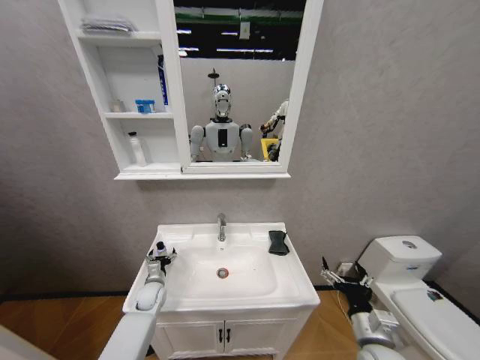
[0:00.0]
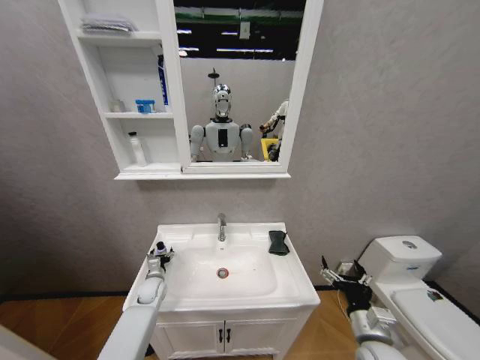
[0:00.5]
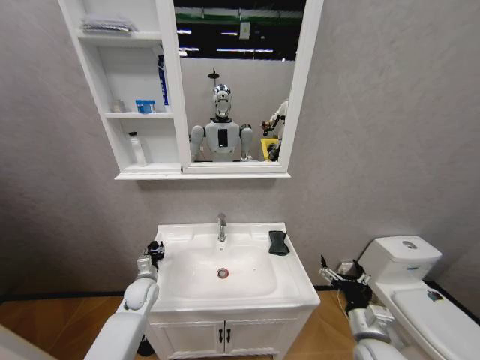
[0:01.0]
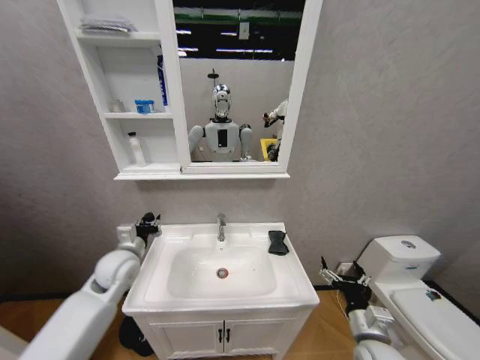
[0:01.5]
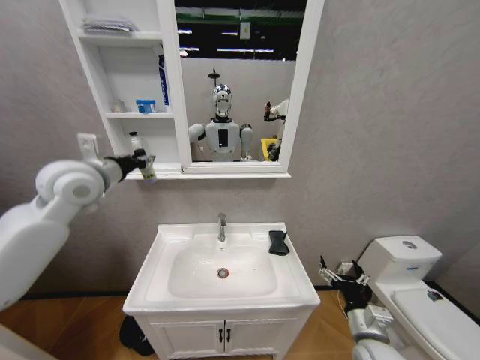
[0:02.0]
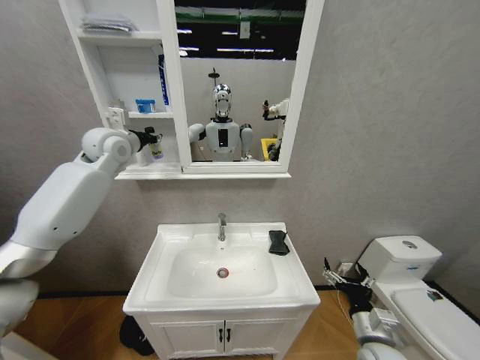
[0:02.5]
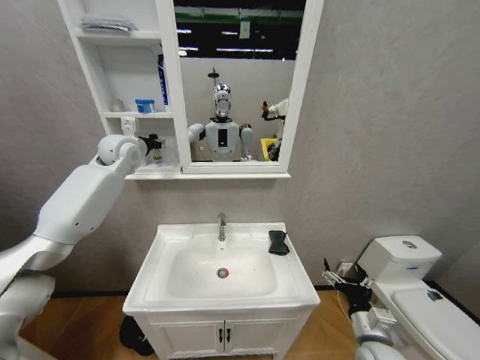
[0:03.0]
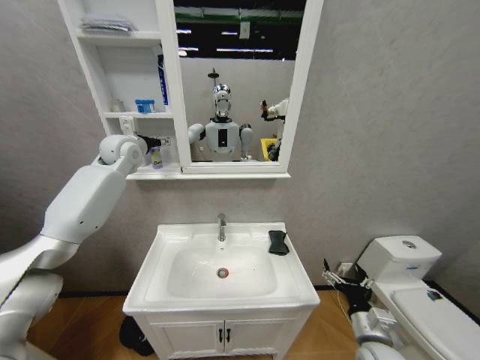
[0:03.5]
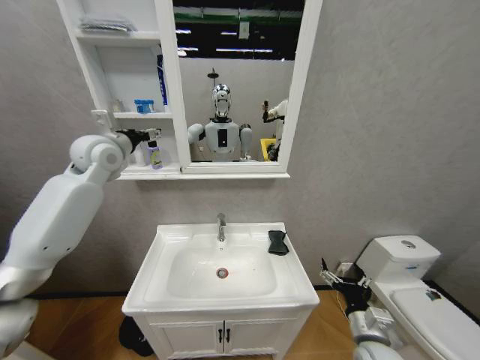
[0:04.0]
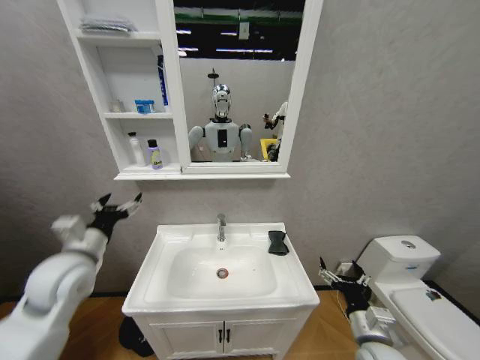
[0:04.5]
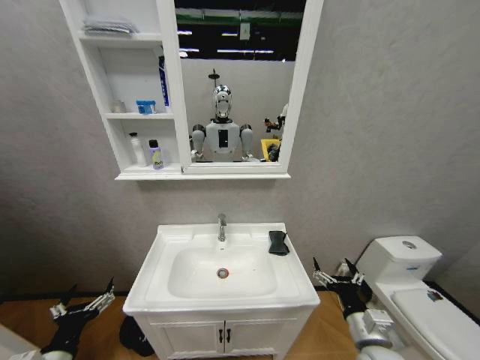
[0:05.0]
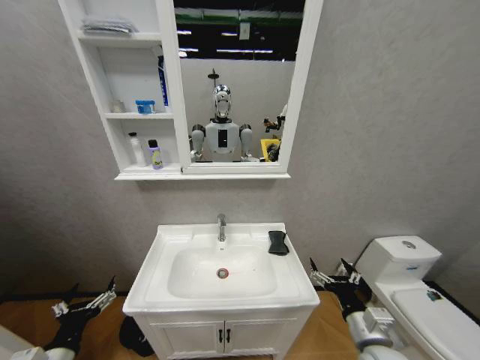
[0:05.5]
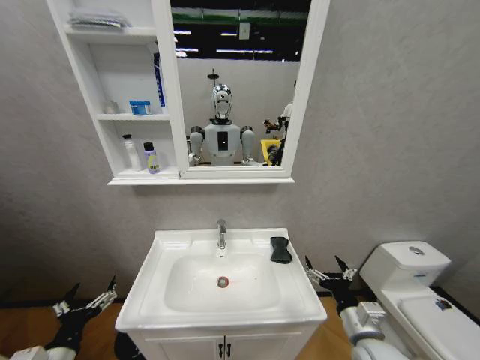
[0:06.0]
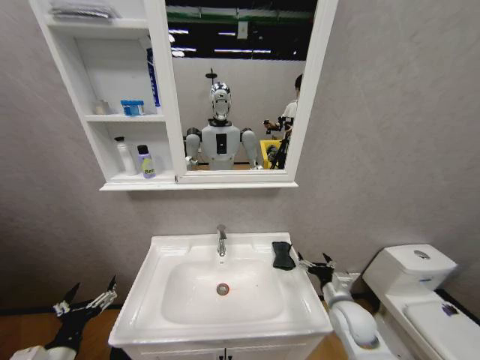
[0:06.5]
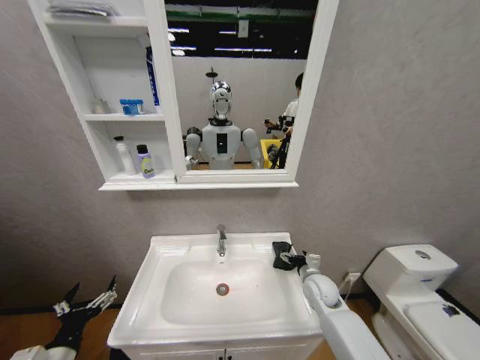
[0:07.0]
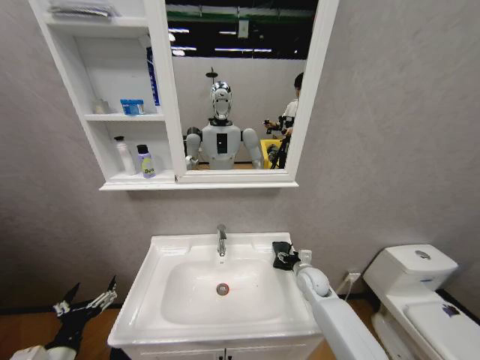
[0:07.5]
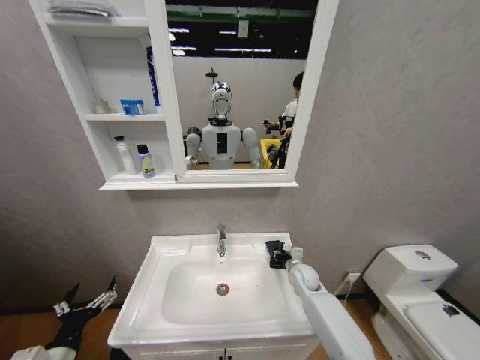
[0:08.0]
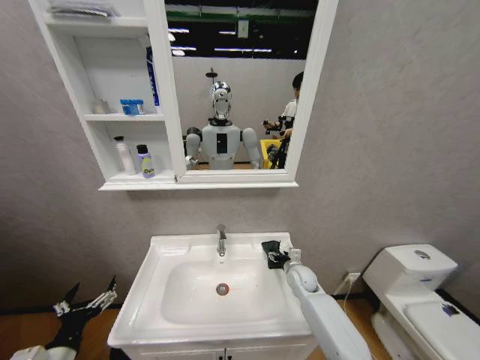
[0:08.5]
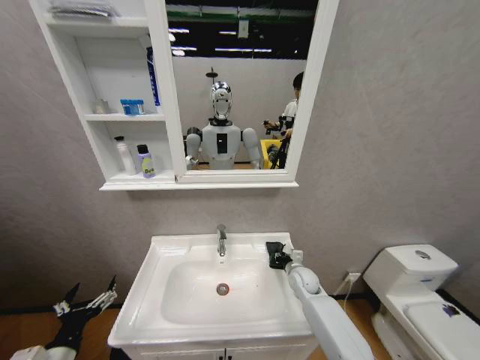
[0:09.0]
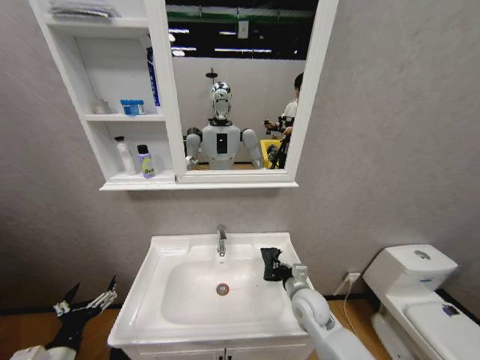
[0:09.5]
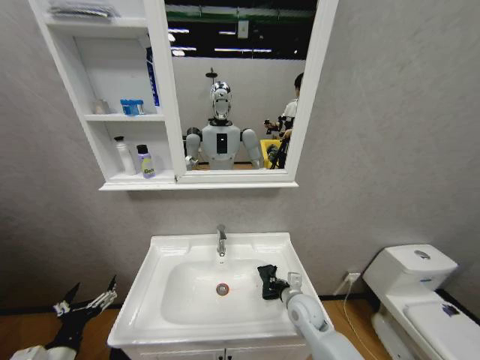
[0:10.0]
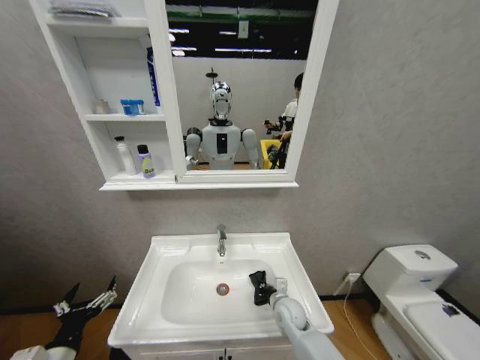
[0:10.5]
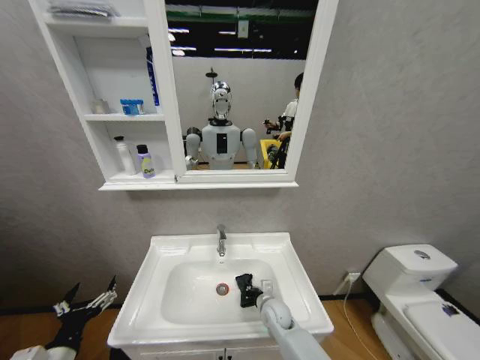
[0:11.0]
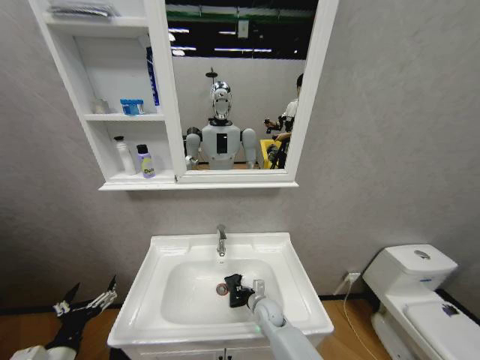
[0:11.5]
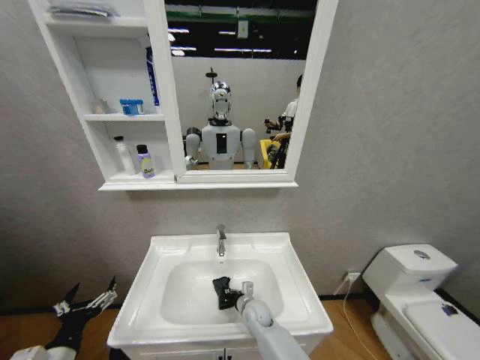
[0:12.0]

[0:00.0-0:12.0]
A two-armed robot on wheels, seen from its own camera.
Task of the whole recording: Move facial cleanser and shampoo from washbasin to cabinet, then wipe washbasin with towel.
0:00.0 to 0:02.0: The left gripper shifts approximately 50 cm upward, and closes up.
0:02.0 to 0:04.0: The left gripper travels forward by approximately 5 cm, and opens up.
0:04.0 to 0:06.0: The left gripper goes some 50 cm downward and backward.
0:06.0 to 0:08.0: The right gripper heads forward, covering some 25 cm, and closes up.
0:08.0 to 0:10.0: The right gripper travels backward by some 10 cm, and opens, then closes once more.
0:10.0 to 0:12.0: The right gripper heads to the left and downward, covering approximately 15 cm.

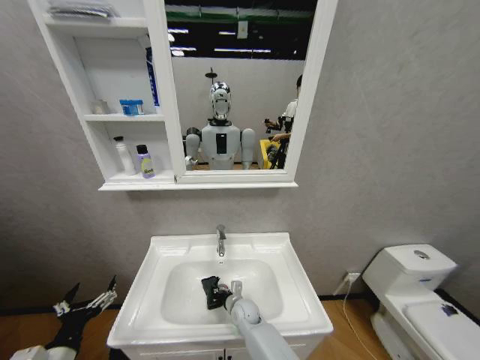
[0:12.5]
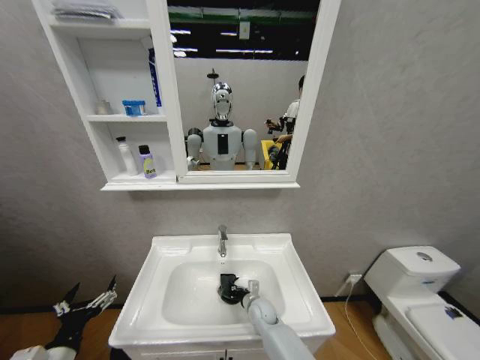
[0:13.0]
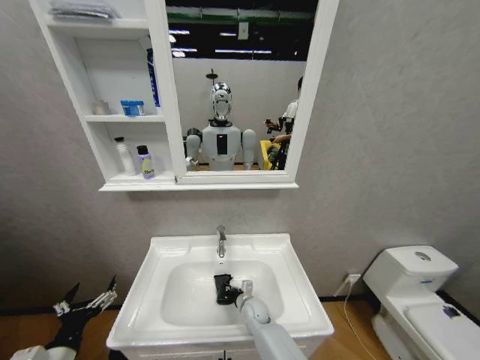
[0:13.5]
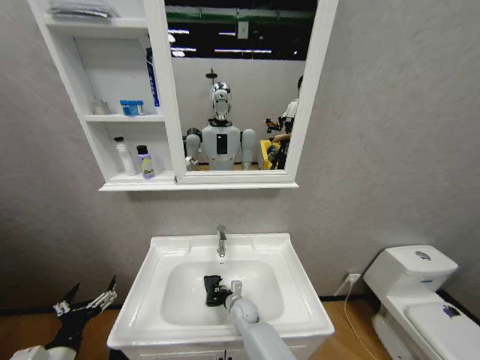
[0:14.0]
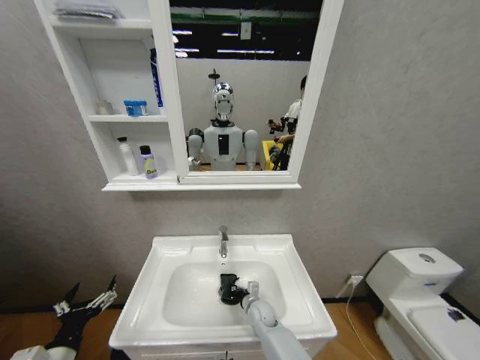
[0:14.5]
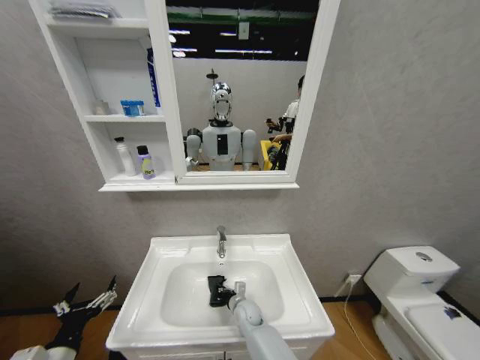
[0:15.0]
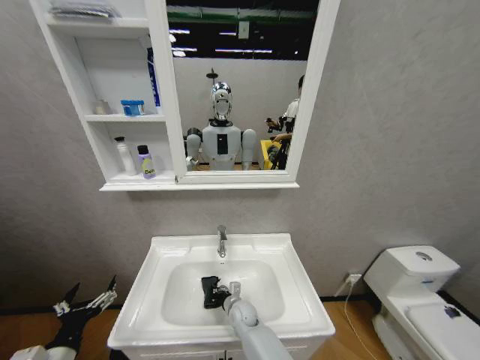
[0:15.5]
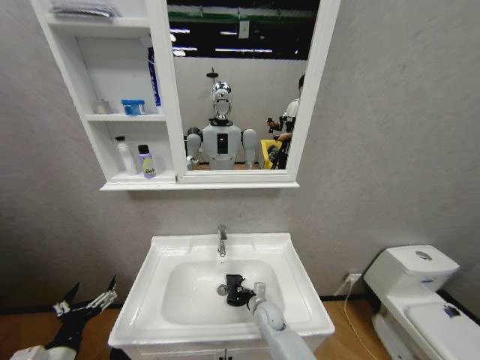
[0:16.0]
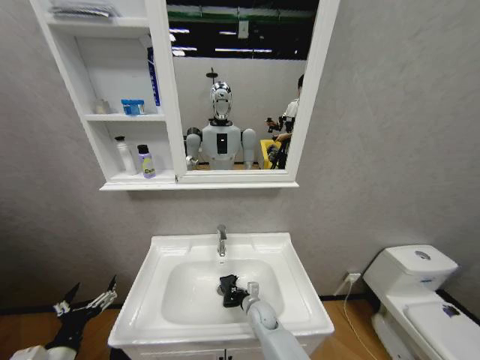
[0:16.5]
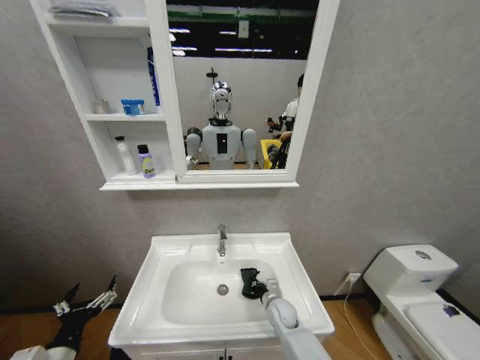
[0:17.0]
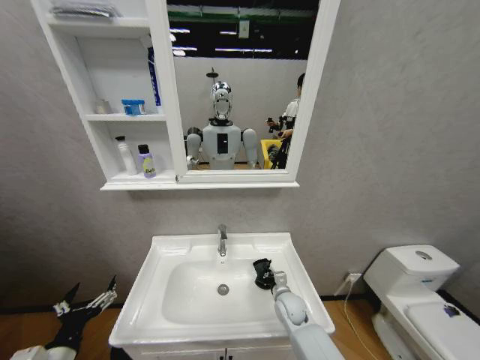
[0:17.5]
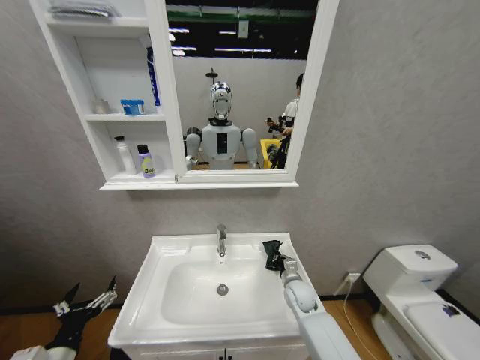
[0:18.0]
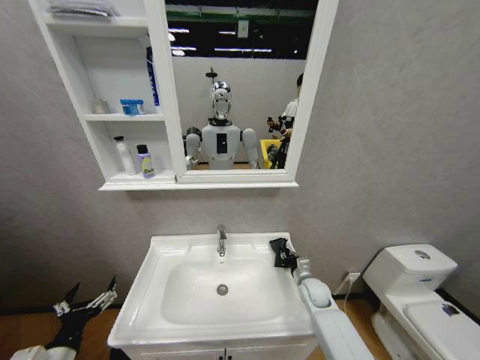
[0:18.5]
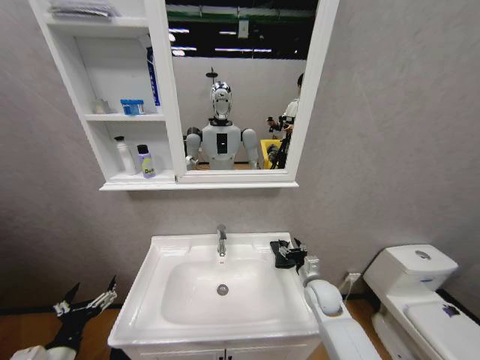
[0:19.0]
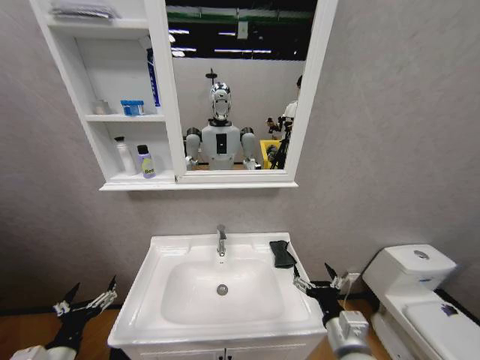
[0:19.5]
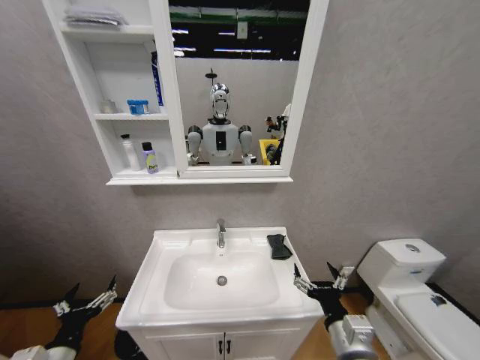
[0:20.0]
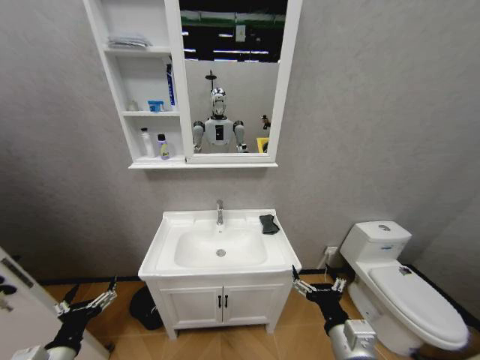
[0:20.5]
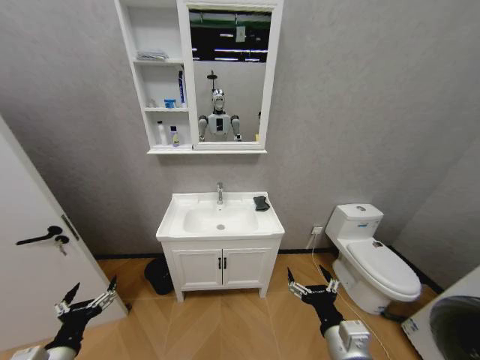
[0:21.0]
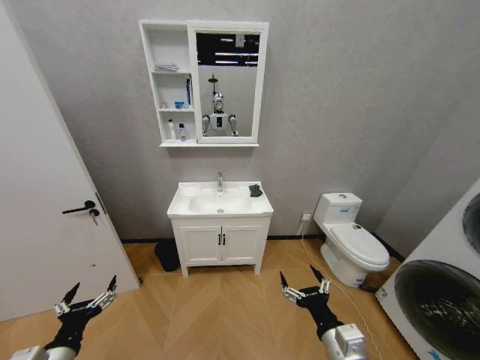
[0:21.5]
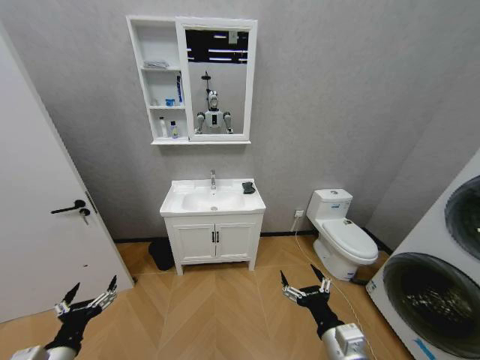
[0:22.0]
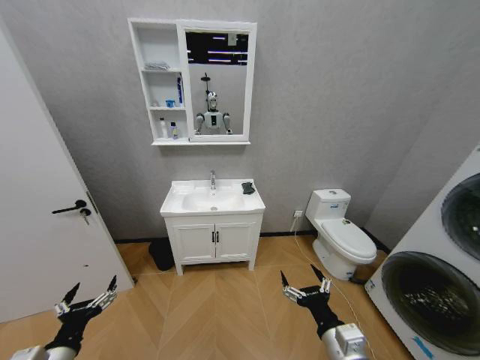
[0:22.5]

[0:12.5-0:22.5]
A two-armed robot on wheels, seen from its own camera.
Task of the whole recording: Move facial cleanser and shampoo from washbasin to cabinet, then wipe washbasin with towel.
0:12.5 to 0:14.5: The right gripper moves left and right over approximately 5 cm, changing direction 2 times.
0:14.5 to 0:16.5: The right gripper reaches approximately 5 cm to the left, then returns.
0:16.5 to 0:18.5: The right gripper is displaced to the right and upward by roughly 20 cm.
0:18.5 to 0:20.5: The right gripper is displaced backward and upward by approximately 30 cm, and opens.

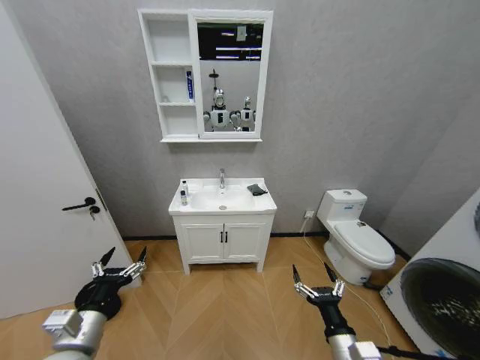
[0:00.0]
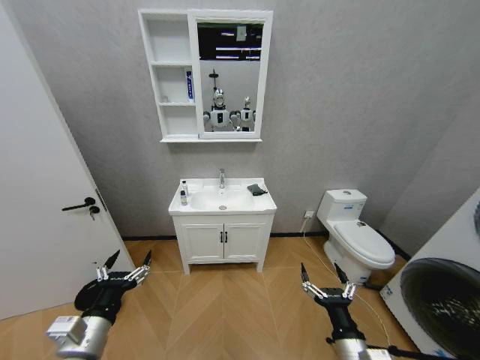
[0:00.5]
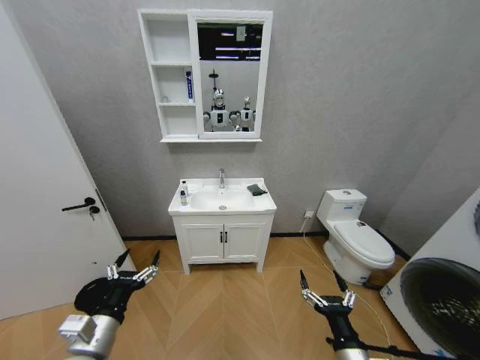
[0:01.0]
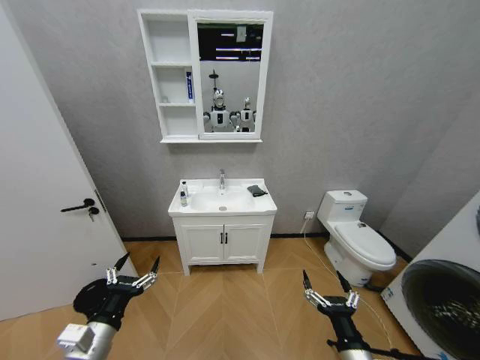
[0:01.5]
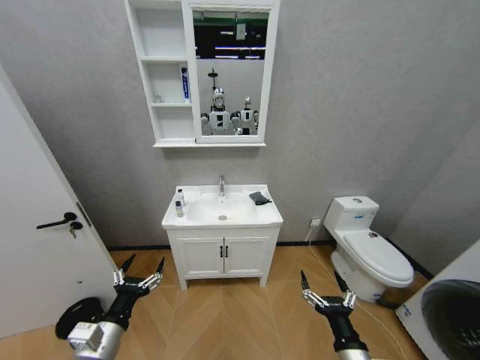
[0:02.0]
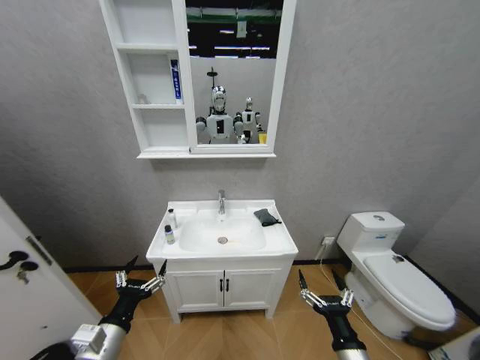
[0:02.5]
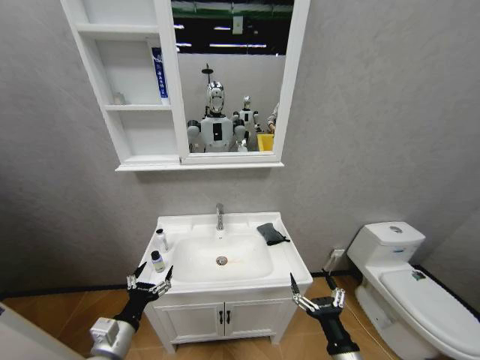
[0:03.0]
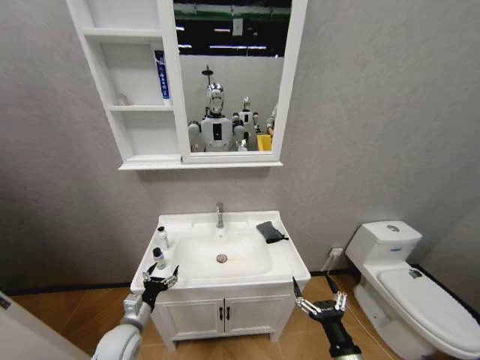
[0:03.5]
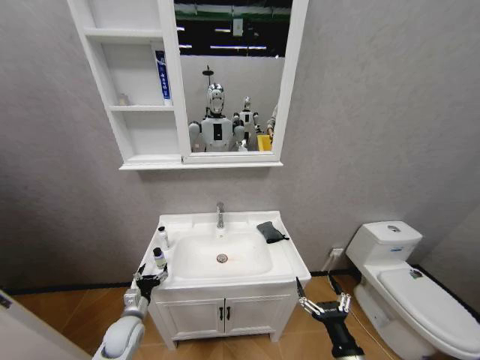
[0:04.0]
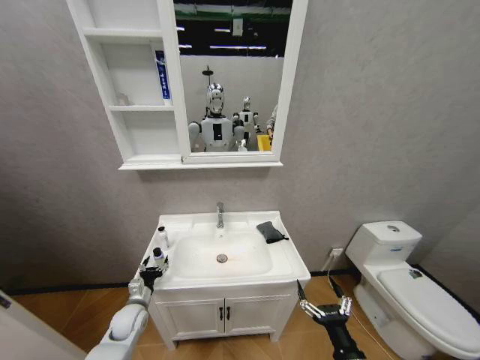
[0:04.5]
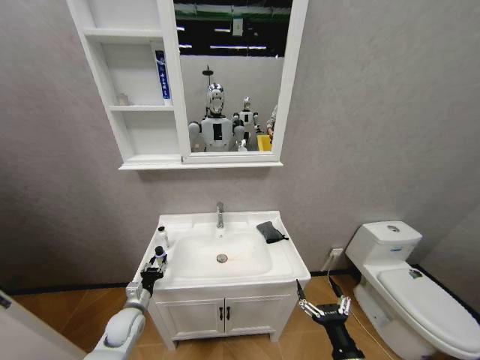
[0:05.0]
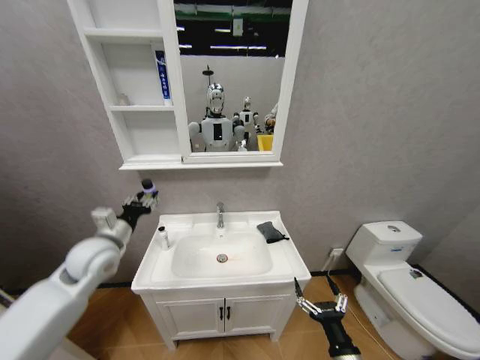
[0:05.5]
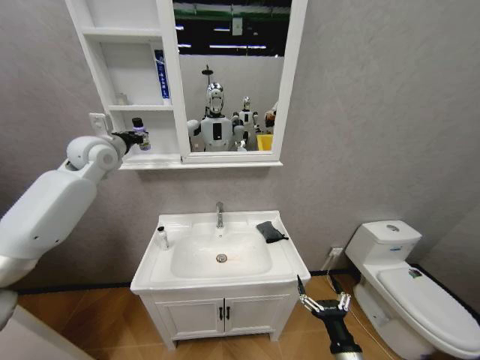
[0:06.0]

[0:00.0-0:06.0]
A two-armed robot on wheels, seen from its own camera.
Task of the whole recording: Move facial cleanser and shampoo from washbasin to cabinet, then wipe washbasin with towel.
0:02.0 to 0:04.0: The left gripper heads downward and forward, covering about 20 cm.
0:04.0 to 0:06.0: The left gripper heads upward and forward, covering about 50 cm, and closes.
